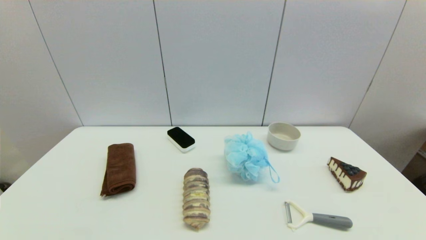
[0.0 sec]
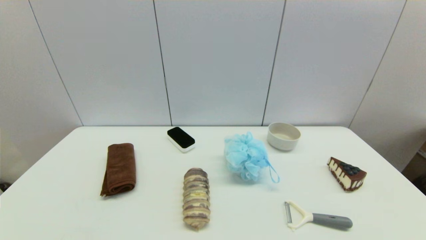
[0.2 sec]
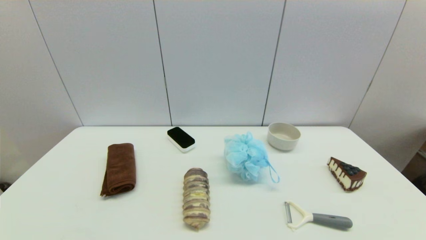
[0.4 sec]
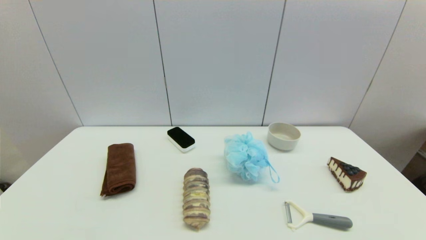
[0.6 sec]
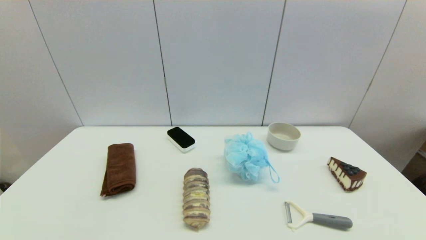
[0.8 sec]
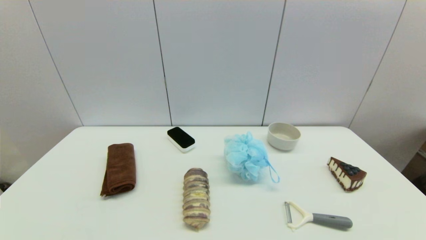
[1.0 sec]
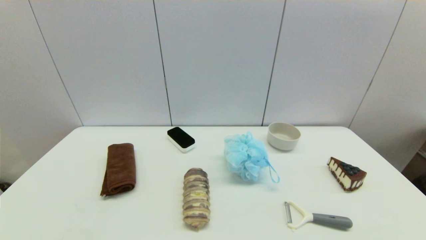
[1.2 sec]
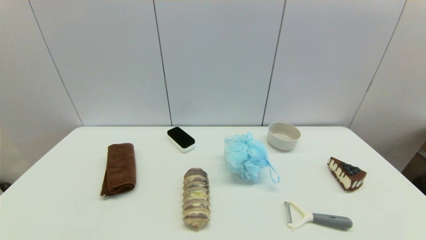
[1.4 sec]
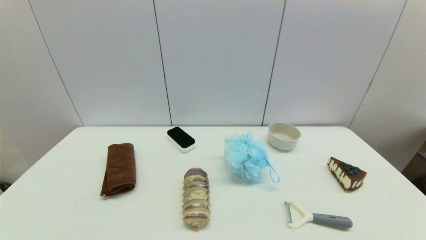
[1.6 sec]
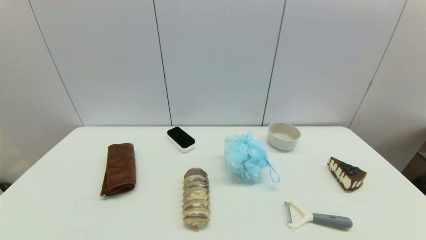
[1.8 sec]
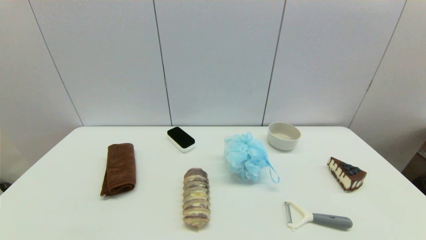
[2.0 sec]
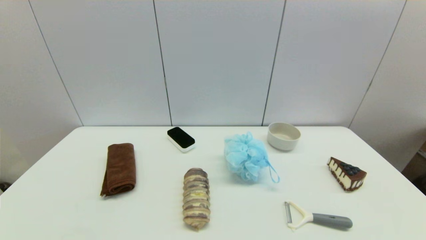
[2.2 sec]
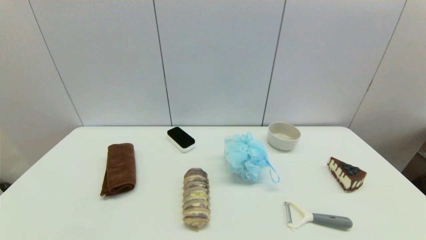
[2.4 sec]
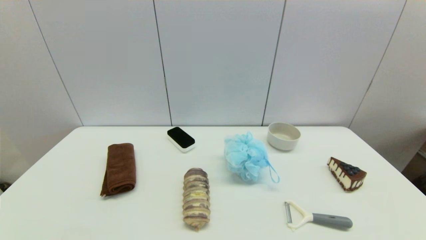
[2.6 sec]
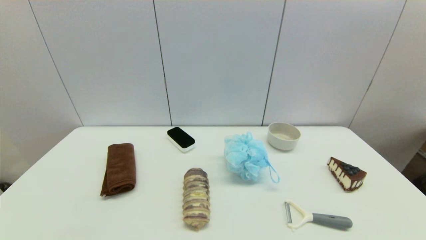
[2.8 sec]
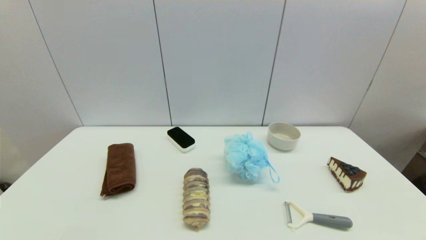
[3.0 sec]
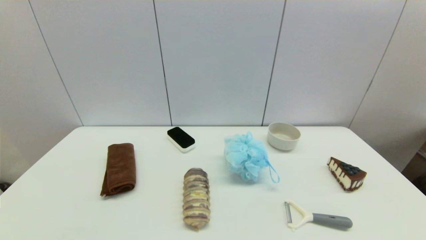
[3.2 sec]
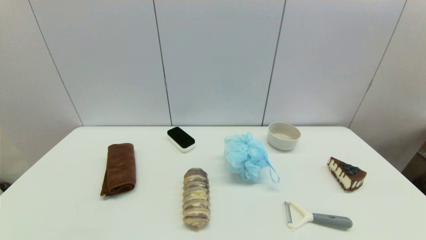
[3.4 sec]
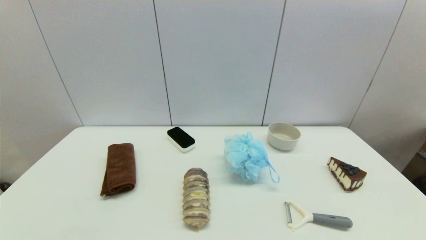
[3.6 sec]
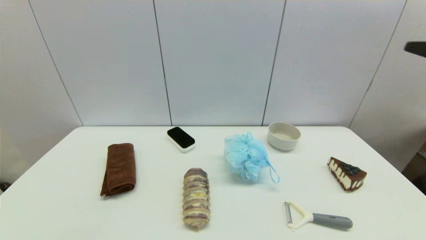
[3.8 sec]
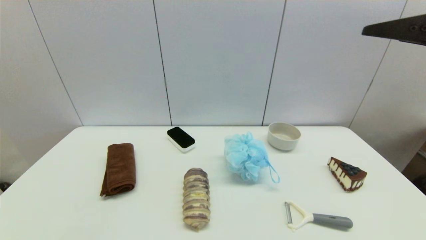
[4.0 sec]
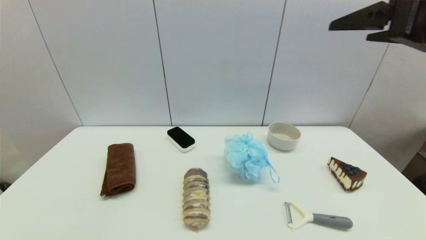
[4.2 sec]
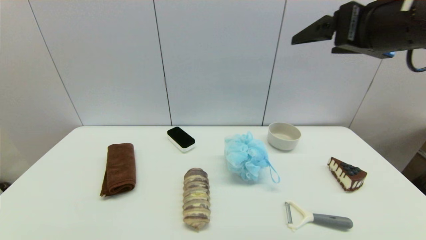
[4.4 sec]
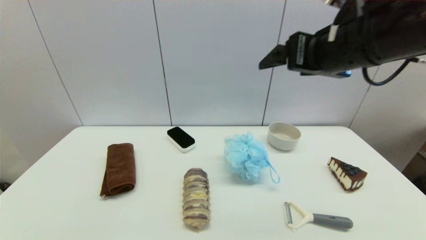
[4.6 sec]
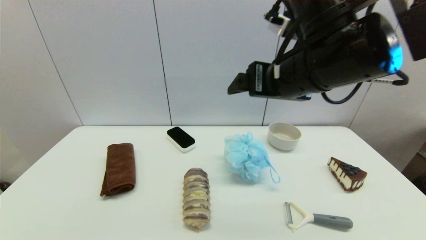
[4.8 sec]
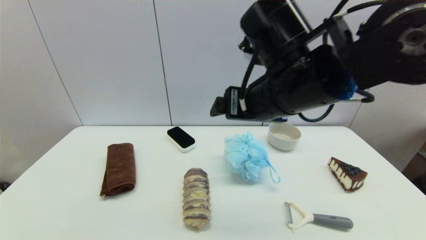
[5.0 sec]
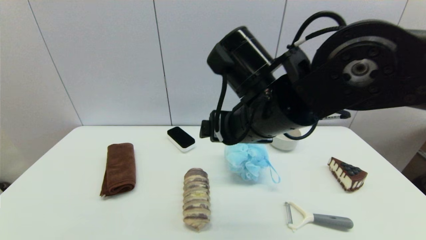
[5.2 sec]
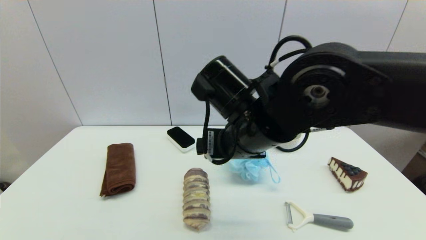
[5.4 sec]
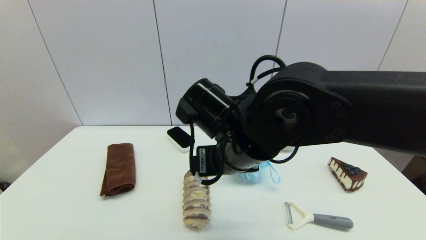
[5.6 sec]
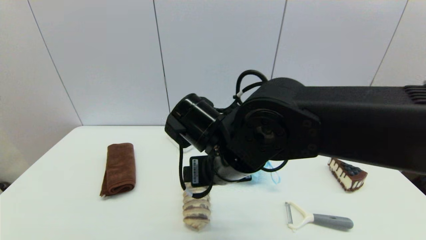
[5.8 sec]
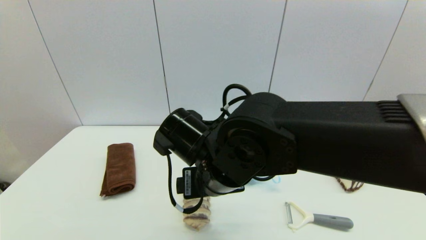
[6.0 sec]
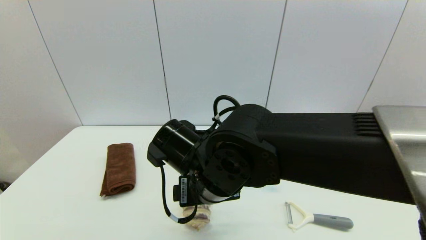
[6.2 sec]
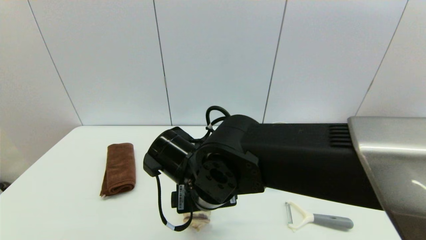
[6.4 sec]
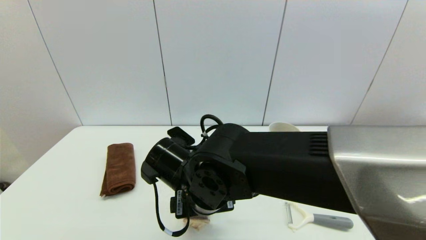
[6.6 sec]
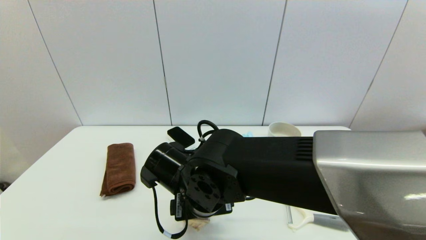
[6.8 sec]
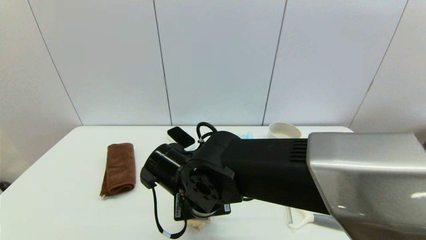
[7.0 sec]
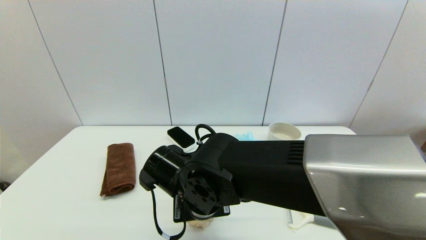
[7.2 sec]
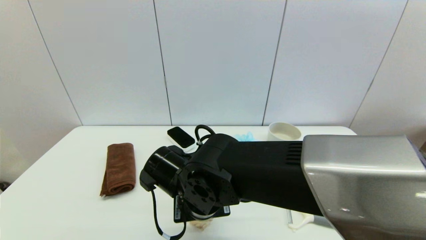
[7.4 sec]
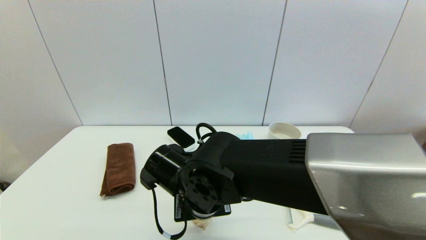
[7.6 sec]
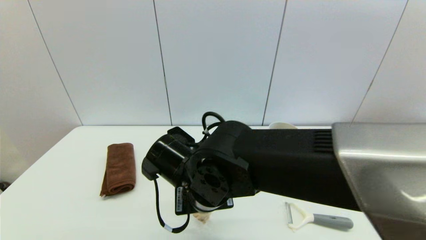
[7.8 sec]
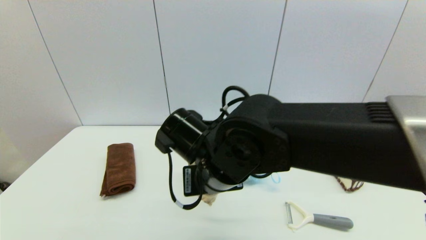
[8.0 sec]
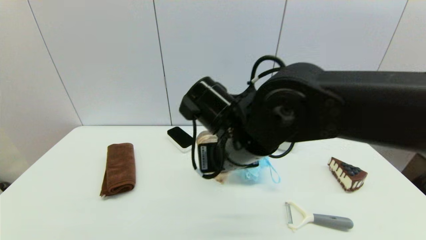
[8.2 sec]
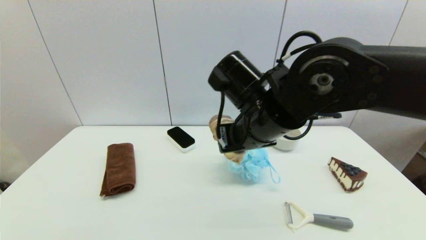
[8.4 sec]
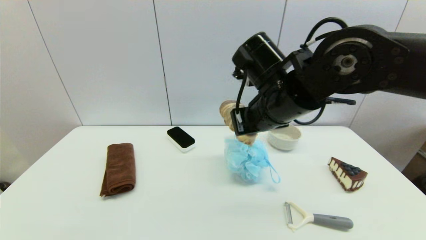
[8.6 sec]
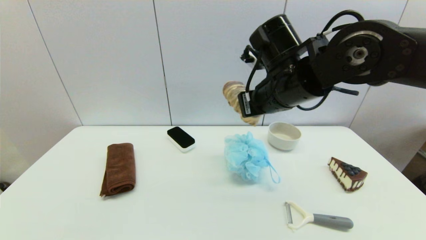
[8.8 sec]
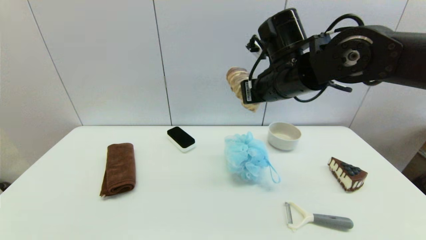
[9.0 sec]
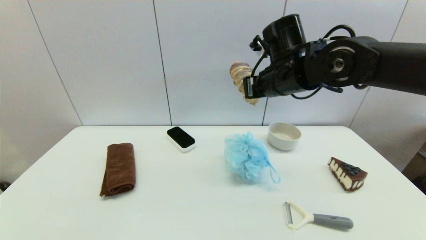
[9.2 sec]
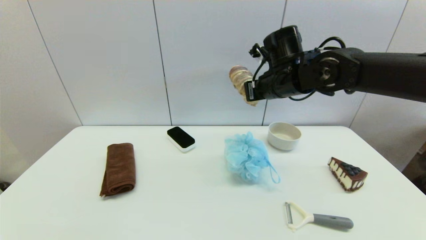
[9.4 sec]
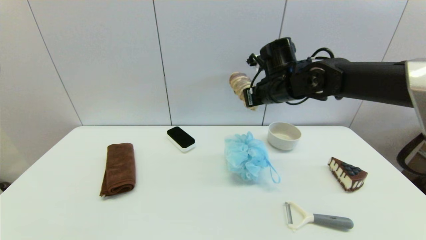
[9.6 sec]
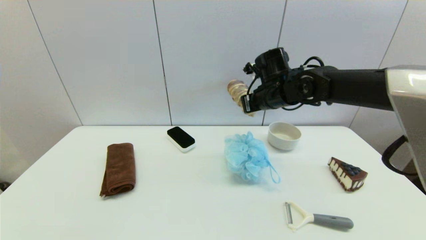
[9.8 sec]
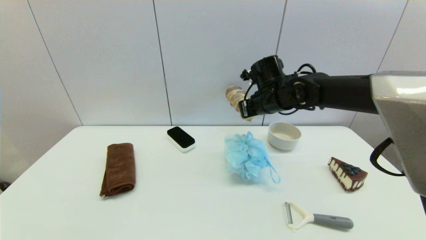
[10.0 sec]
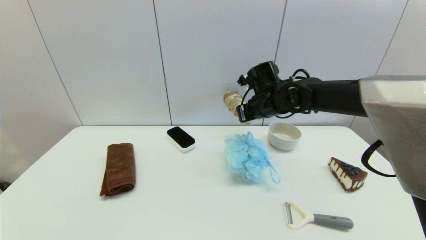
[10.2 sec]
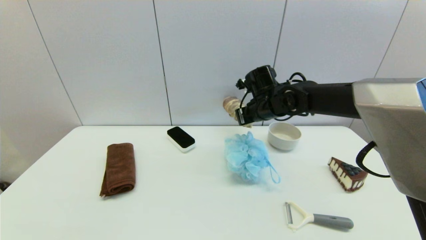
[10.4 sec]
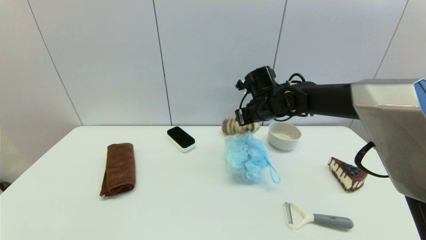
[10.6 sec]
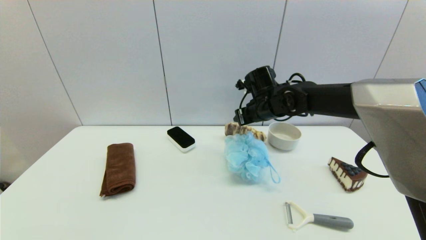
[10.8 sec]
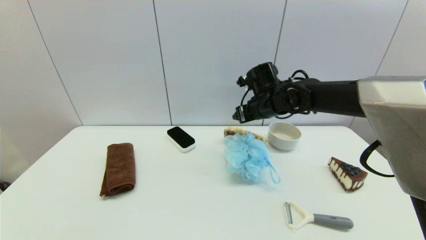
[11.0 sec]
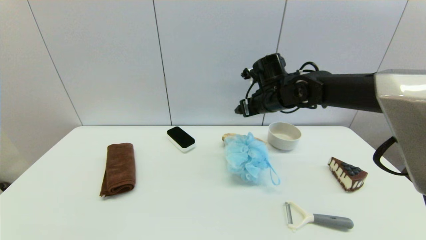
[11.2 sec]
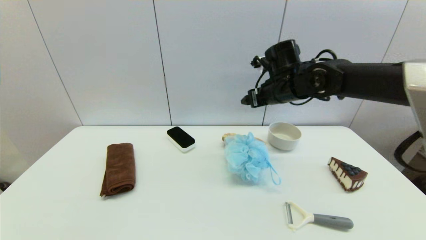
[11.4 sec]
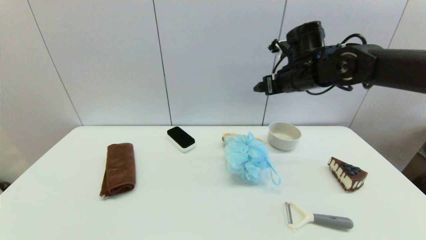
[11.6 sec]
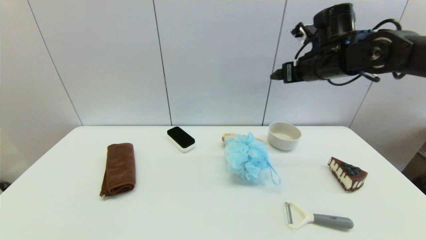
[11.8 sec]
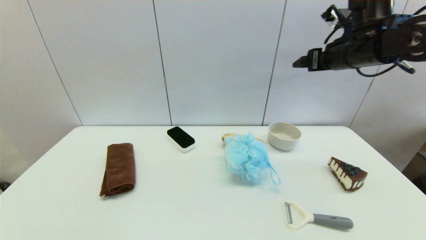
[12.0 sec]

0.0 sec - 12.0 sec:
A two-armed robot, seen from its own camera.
Step, 3.8 sec - 7.4 sec: Grasp the long bread with right gripper.
Step, 7.8 sec - 11.2 sec: Place the long bread on the table with right gripper.
0.0 sec - 1.6 sec: The two grippers keep their place.
3.0 sec - 4.4 sec: The right gripper is displaced upward, forward and to the left by roughly 35 cm.
4.4 sec - 6.0 sec: The right gripper goes some 30 cm to the left and downward.
6.0 sec - 7.6 sec: The right gripper heads downward, covering approximately 5 cm, and closes up.
7.6 sec - 9.0 sec: The right gripper moves to the right, upward and forward, some 25 cm.
9.0 sec - 10.4 sec: The right gripper is displaced downward and forward by roughly 15 cm.
10.4 sec - 12.0 sec: The right gripper shifts about 20 cm to the right and upward, and opens its fingers.

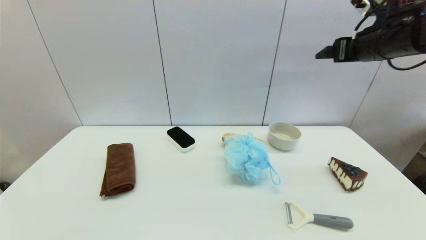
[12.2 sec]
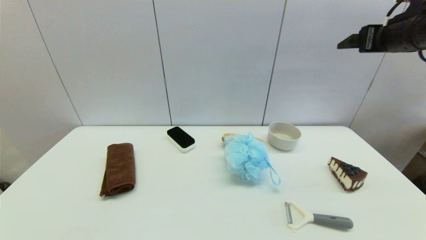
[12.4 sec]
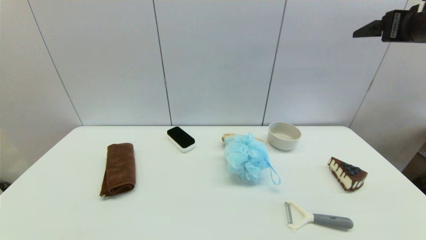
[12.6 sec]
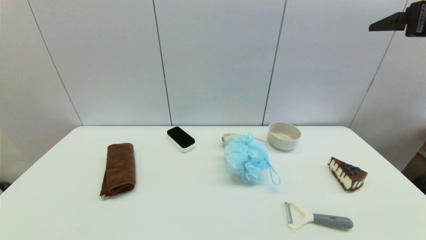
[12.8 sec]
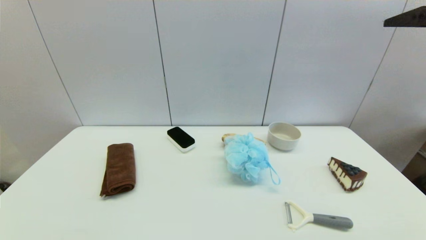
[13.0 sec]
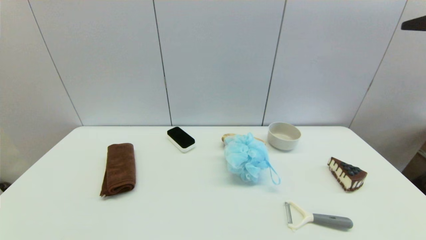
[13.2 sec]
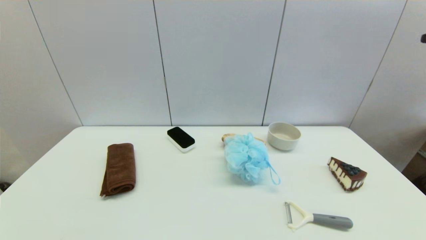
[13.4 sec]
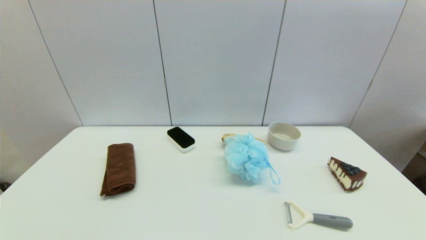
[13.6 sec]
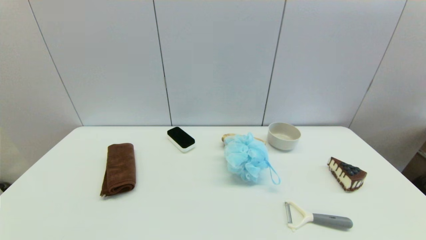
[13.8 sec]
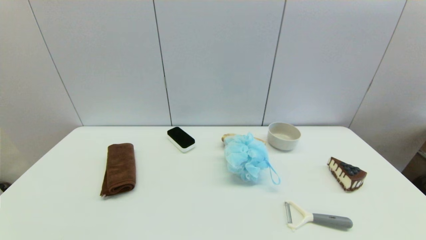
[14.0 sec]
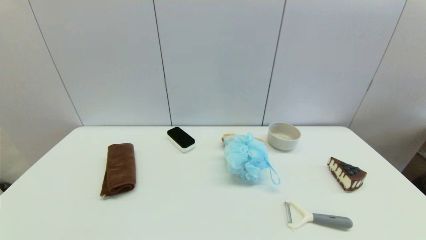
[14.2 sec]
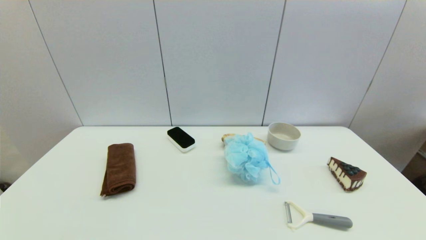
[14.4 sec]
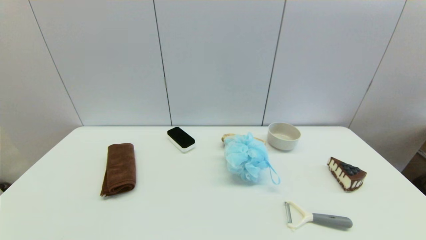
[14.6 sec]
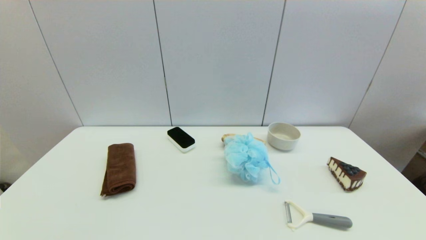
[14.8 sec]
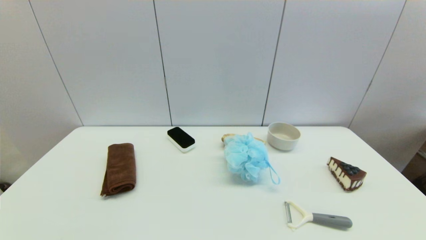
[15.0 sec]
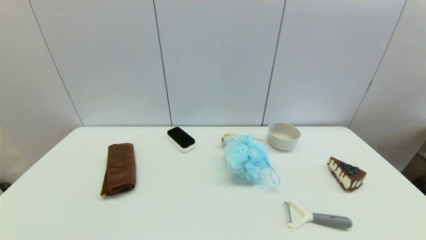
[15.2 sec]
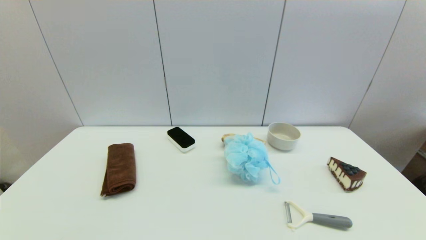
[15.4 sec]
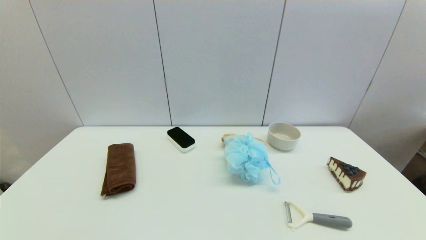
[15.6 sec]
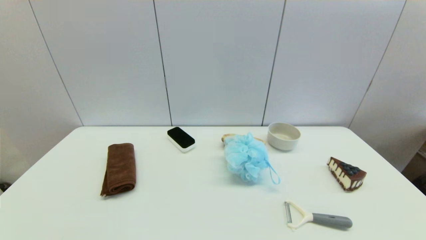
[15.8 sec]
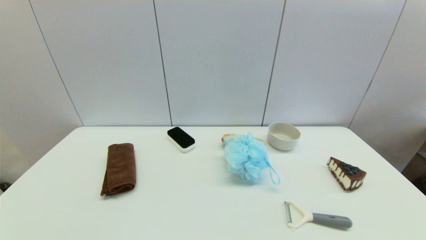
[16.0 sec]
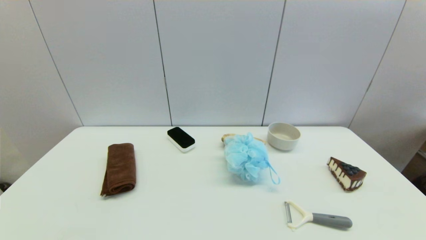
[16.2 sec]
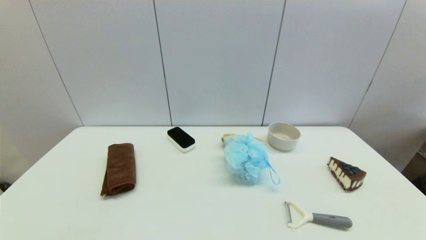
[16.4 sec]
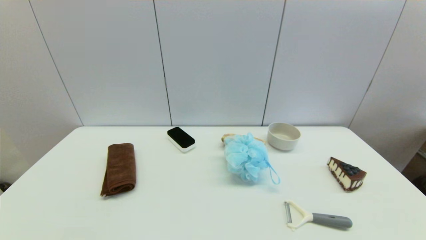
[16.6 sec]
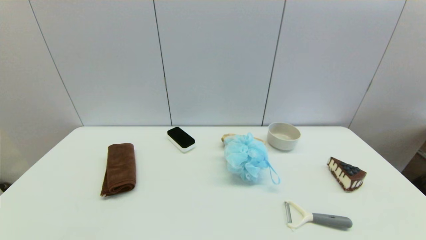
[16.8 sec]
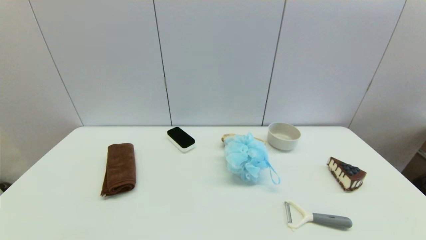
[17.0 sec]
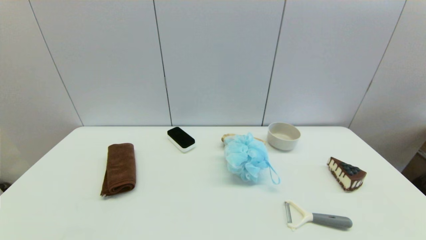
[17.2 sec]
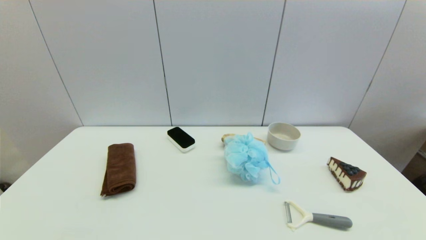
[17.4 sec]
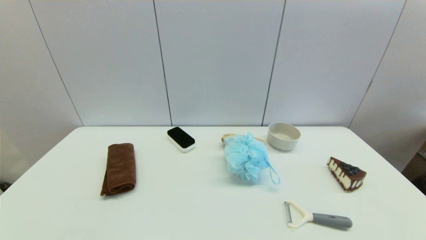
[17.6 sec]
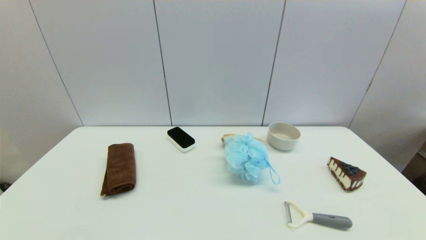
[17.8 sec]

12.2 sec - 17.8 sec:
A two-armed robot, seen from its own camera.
12.2 sec - 13.6 sec: The right gripper goes roughly 25 cm backward.
